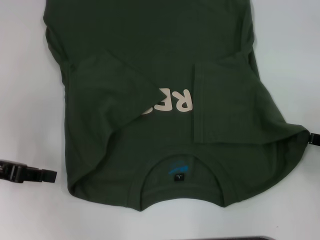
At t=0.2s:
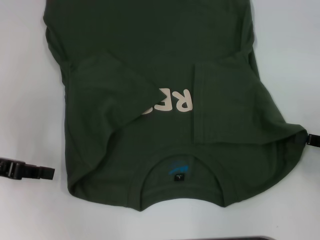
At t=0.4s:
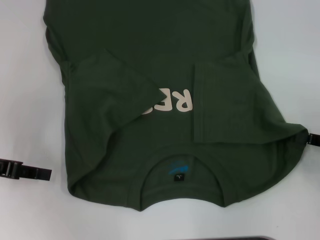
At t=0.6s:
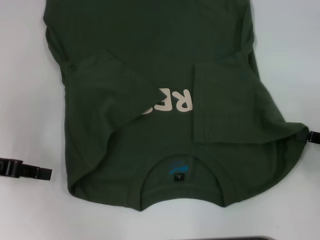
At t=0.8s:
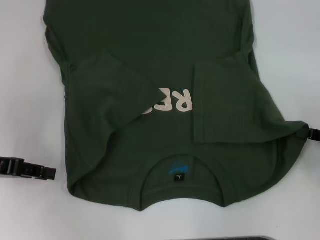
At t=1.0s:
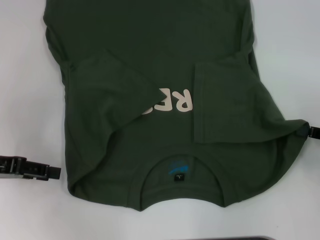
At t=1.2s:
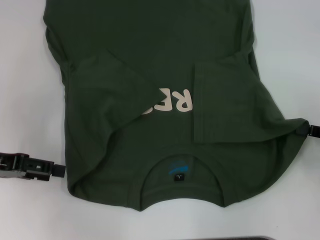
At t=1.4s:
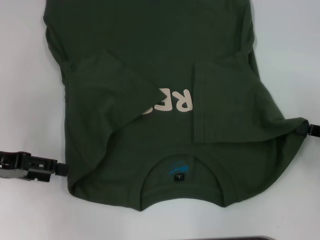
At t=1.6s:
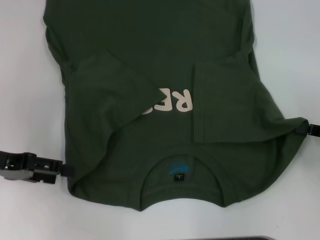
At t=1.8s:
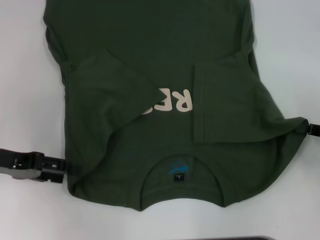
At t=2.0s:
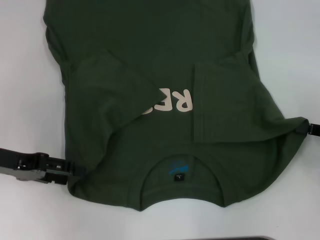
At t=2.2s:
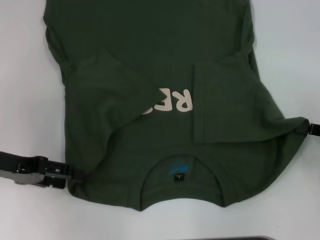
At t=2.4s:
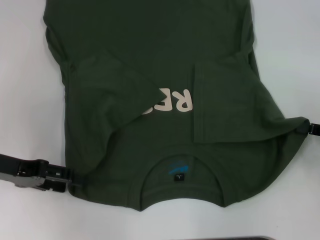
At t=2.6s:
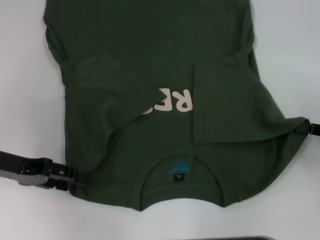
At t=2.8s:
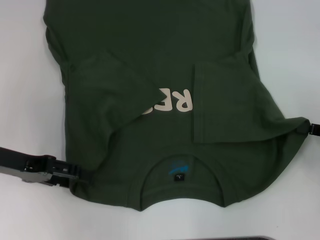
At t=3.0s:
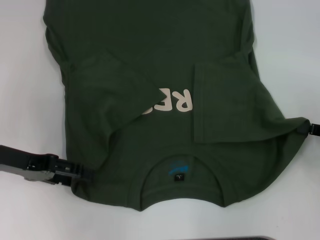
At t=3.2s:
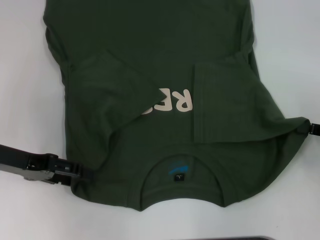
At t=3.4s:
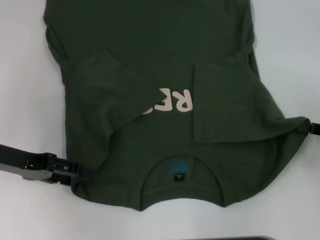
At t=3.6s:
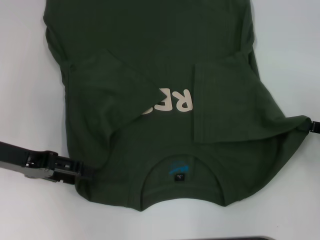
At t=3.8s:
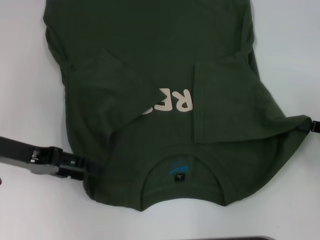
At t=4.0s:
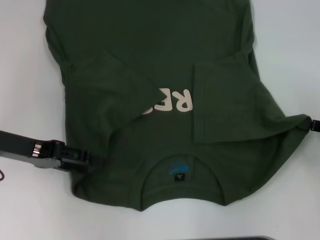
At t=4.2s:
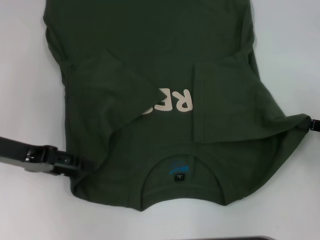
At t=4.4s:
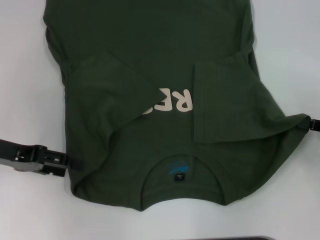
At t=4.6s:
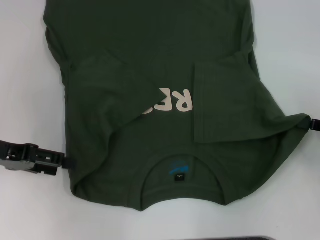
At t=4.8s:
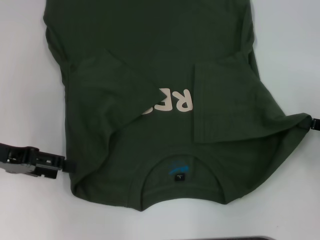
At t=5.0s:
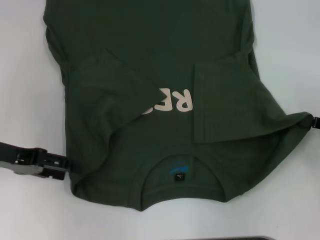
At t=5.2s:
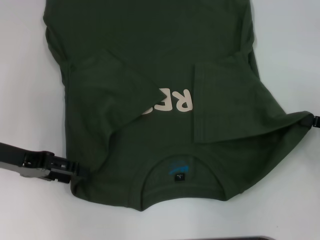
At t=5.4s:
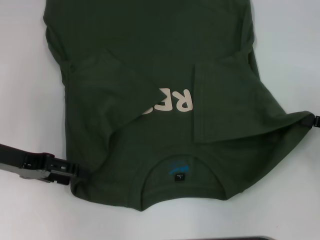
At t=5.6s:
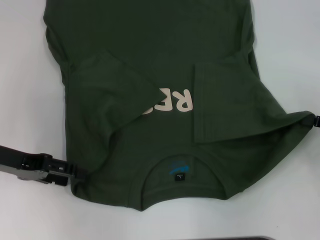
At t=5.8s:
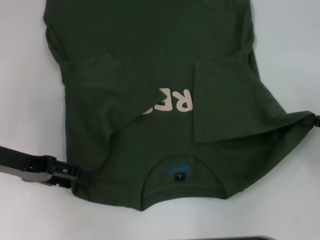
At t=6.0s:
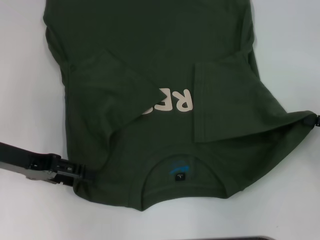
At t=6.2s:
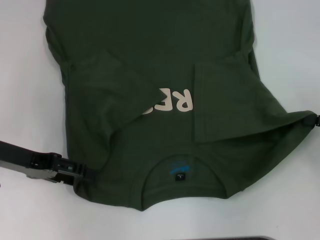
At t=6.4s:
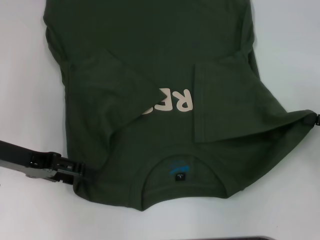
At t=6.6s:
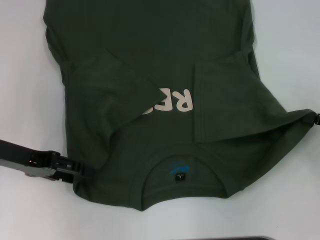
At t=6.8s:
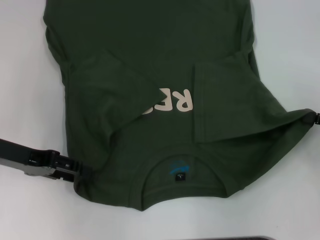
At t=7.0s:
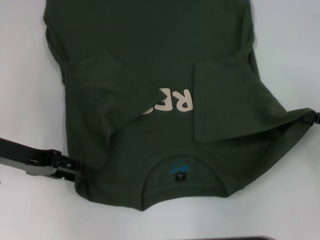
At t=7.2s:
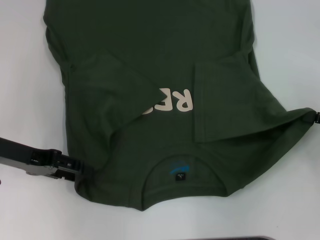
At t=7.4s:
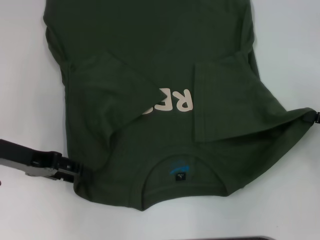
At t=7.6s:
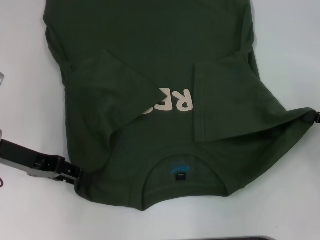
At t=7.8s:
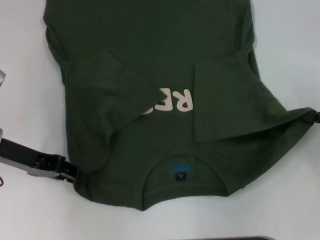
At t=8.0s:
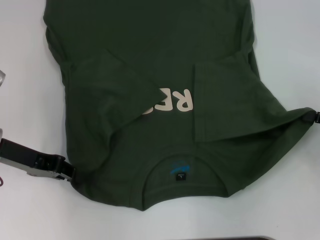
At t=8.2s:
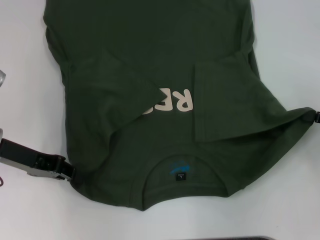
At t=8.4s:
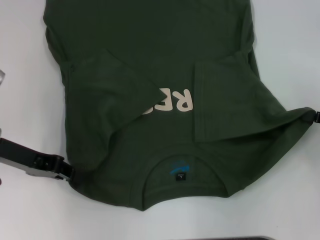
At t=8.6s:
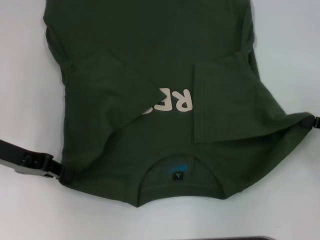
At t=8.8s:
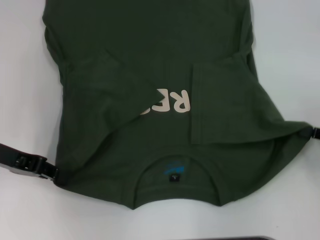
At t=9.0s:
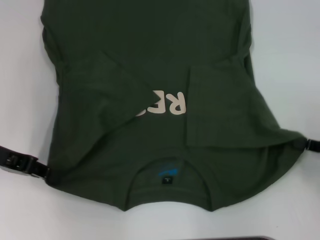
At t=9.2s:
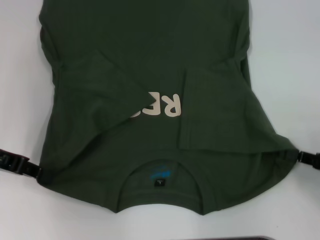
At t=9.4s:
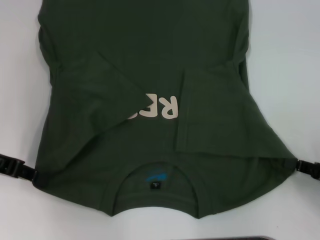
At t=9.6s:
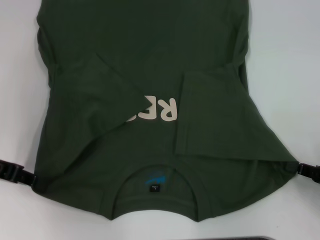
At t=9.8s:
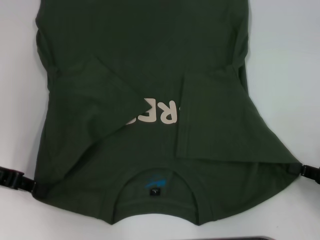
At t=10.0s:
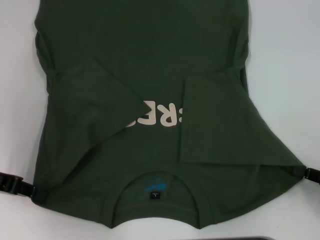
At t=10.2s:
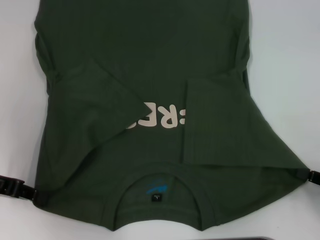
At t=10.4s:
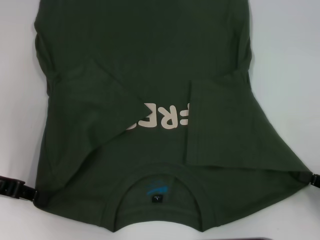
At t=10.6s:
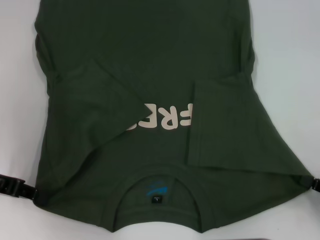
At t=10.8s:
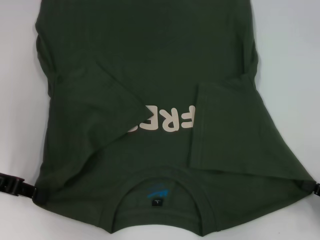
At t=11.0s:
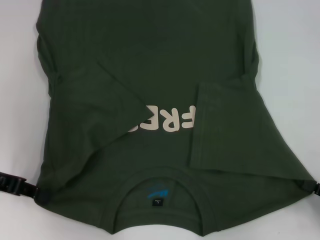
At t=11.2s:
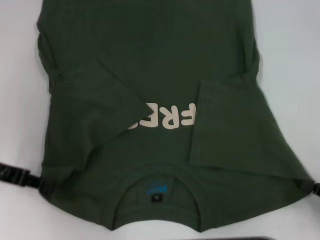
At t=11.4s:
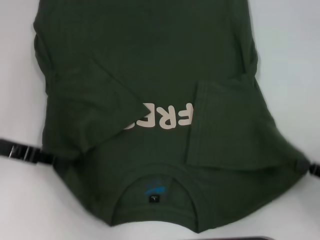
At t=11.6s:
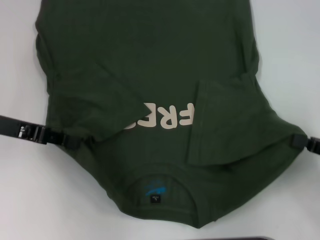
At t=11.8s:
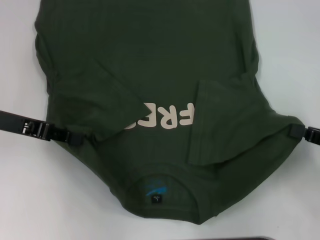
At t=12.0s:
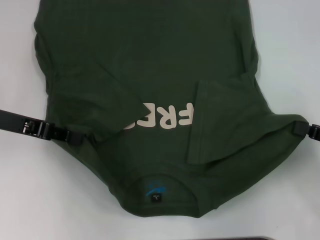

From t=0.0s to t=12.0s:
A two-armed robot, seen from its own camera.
Step, from t=0.0s to t=8.6s: Grab the bottom left corner with your left hand.
From t=0.0s to t=1.6s: The left gripper opens.
From t=1.6s to t=7.6s: The grippers stay close to where they were, moving slightly.
From t=7.6s to t=9.0s: The left gripper closes.
From t=9.0s to t=10.4s: The right gripper moves backward, some 5 cm.
From t=10.4s to t=12.0s: The right gripper heads forward and upward, covering some 10 cm. Meanwhile the left gripper travels forward by roughly 5 cm.

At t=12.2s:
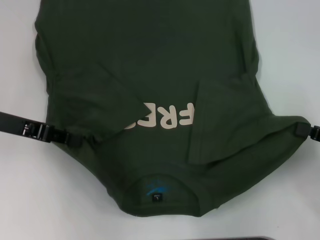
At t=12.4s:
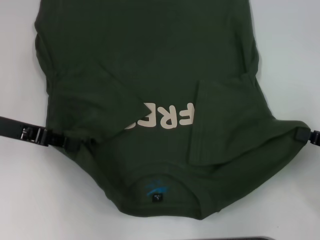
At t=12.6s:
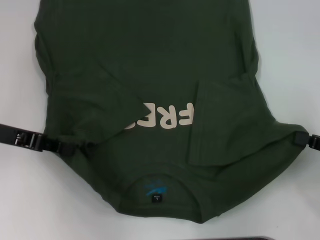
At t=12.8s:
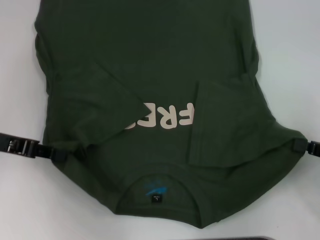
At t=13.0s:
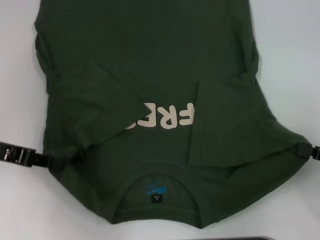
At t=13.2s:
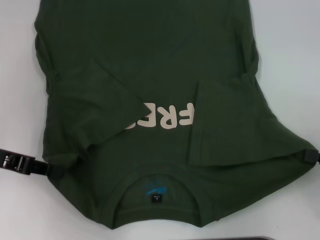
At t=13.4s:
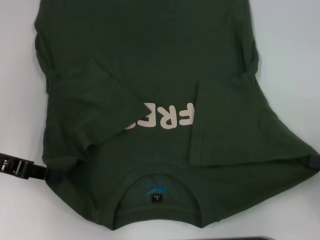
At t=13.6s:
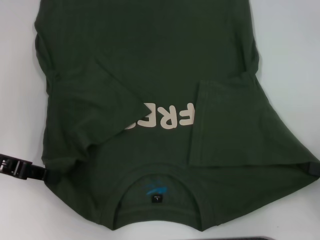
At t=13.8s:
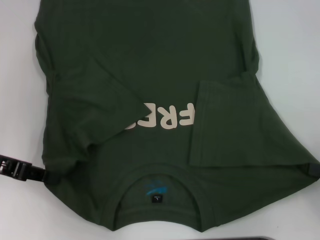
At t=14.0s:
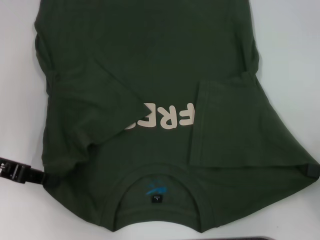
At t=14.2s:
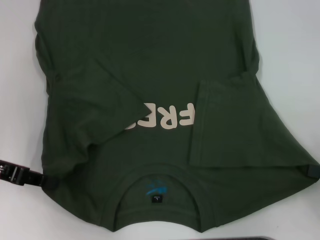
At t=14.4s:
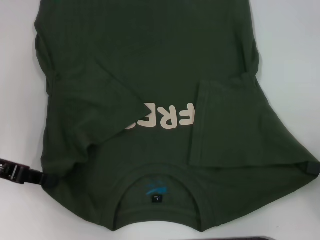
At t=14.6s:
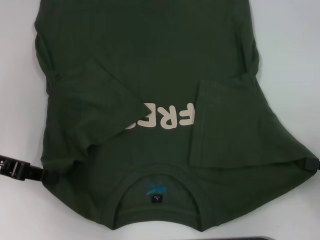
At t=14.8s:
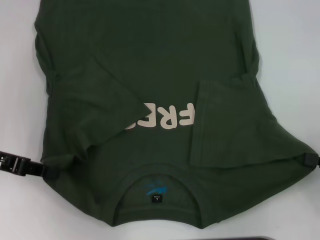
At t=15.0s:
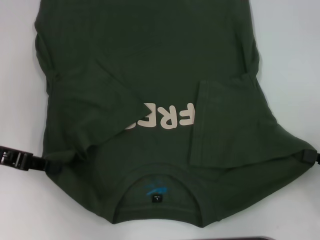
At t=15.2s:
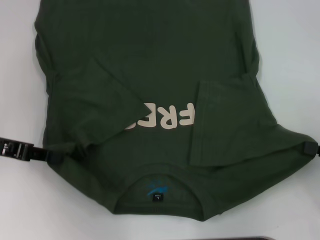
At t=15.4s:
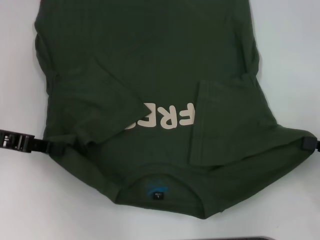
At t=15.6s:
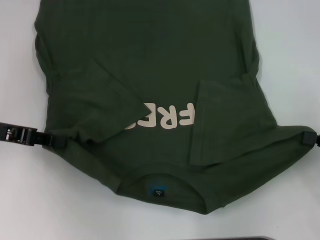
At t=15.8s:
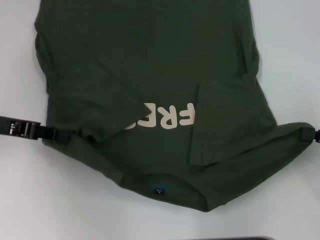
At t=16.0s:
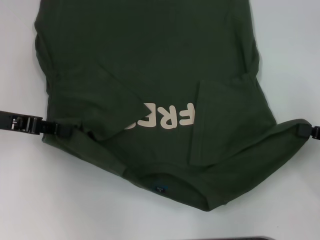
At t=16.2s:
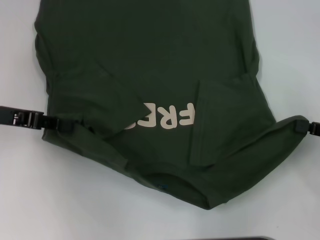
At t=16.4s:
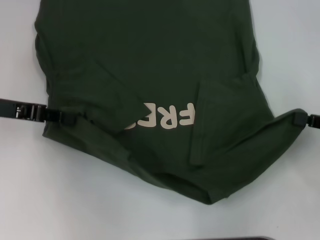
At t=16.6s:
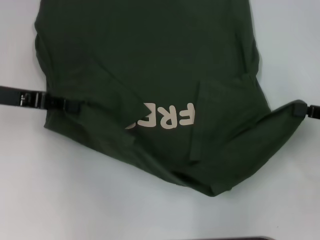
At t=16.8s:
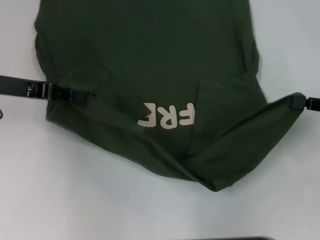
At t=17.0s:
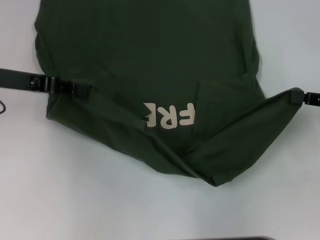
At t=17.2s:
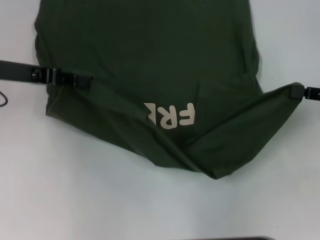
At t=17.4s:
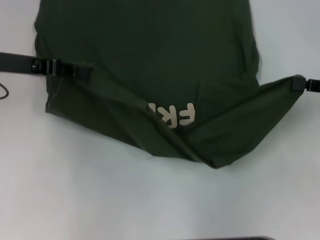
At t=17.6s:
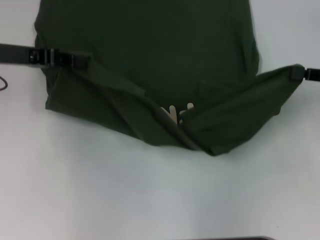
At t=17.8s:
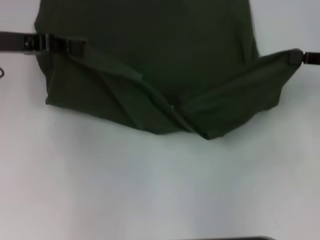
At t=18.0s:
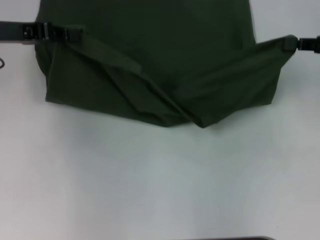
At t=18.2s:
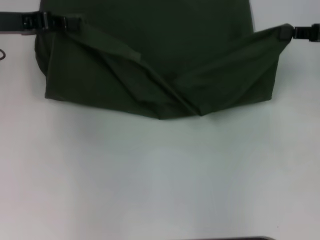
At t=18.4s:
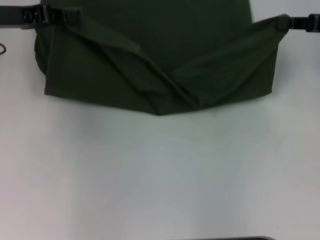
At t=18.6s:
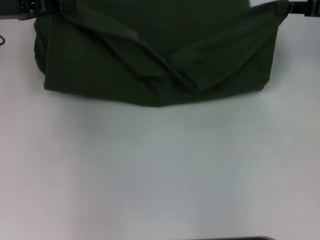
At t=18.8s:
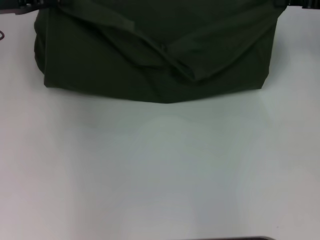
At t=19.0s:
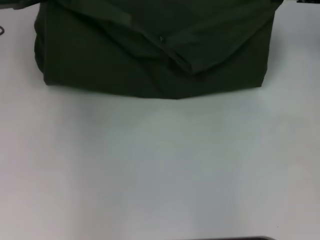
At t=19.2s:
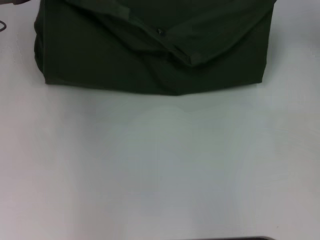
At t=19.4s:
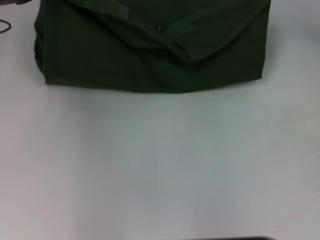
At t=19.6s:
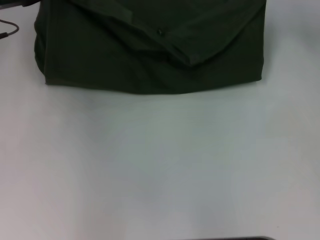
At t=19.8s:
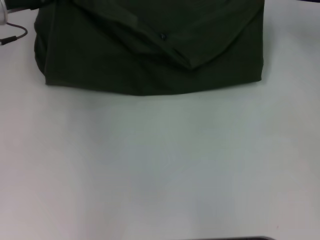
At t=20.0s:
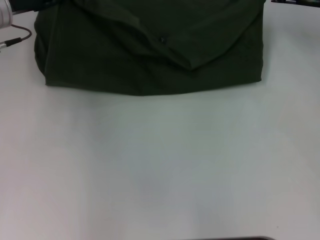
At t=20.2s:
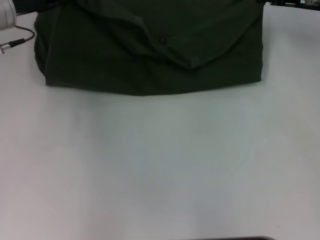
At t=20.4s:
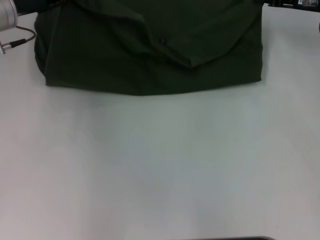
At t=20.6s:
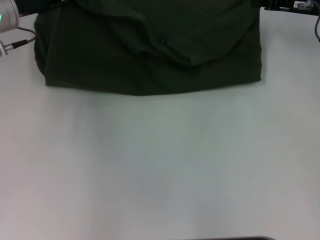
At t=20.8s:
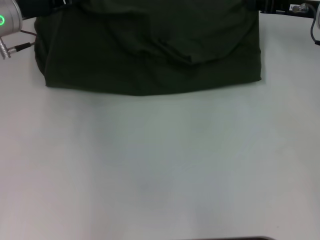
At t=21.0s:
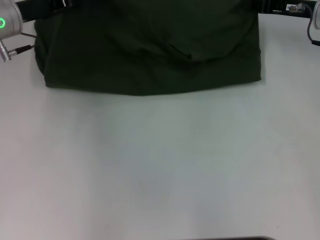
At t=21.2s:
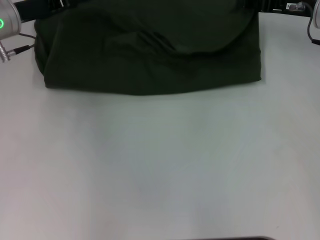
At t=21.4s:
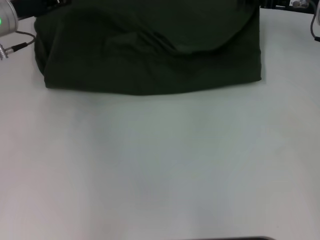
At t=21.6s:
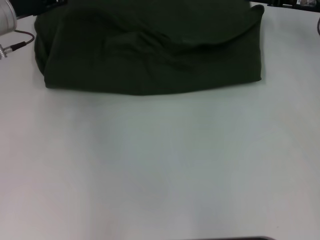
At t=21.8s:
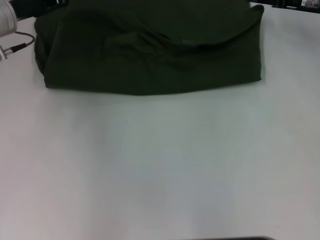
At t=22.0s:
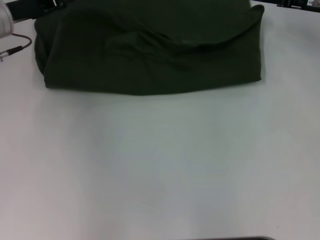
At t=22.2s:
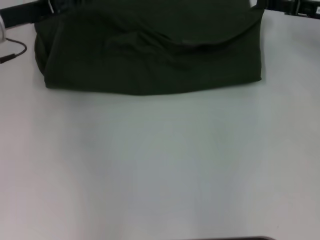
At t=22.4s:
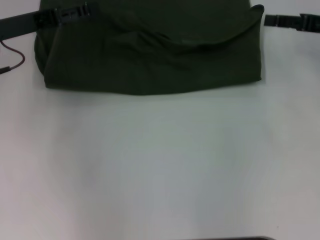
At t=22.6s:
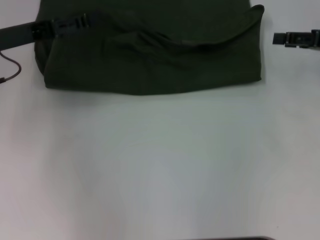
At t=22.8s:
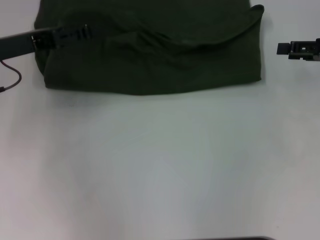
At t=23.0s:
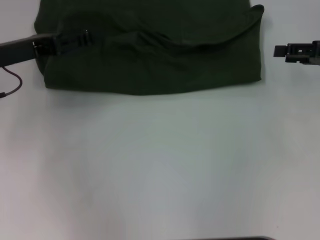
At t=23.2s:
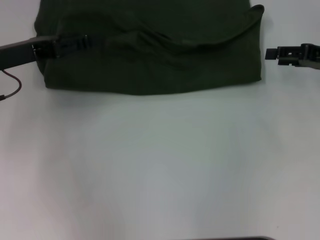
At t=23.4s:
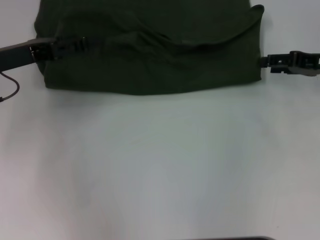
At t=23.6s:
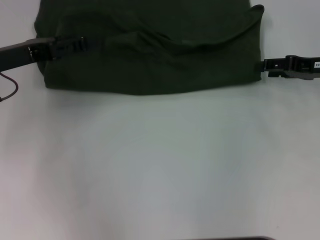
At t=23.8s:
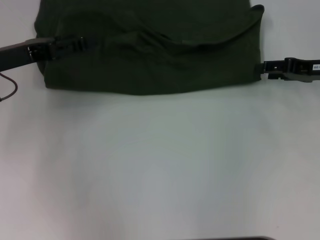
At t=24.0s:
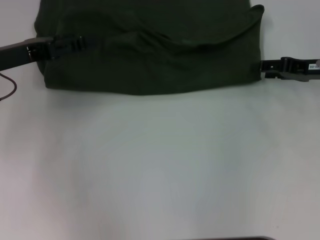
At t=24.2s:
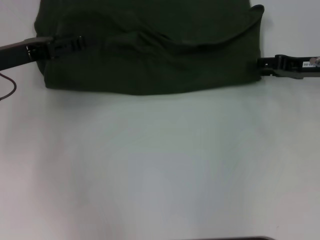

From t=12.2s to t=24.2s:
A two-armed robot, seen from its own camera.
Step, from t=12.2s to t=22.2s: Fold the clothes with your left hand.
Step, from t=12.2s to t=22.2s: Fold the clothes with your right hand.
From t=12.2s to t=13.8s: The left gripper shifts by roughly 5 cm.
From t=13.8s to t=15.2s: The grippers make only small movements.
From t=15.2s to t=16.6s: The right gripper heads forward, covering roughly 5 cm, while the left gripper changes place by approximately 5 cm.
From t=16.6s to t=18.2s: The right gripper heads forward and upward, covering about 10 cm. The left gripper moves forward, approximately 5 cm.
From t=18.2s to t=19.8s: The right gripper shifts roughly 5 cm forward.
From t=19.8s to t=21.2s: The grippers stay close to where they were, moving slightly.
From t=21.2s to t=22.6s: The right gripper moves to the right and backward, approximately 10 cm, and opens its fingers. The left gripper moves backward, roughly 5 cm, and opens its fingers.
From t=22.6s to t=24.2s: The right gripper changes place by approximately 5 cm.
